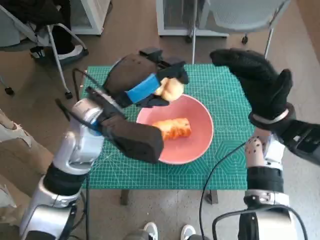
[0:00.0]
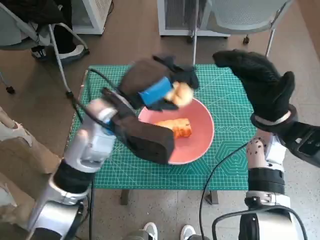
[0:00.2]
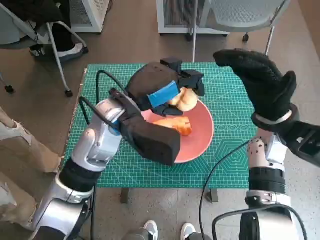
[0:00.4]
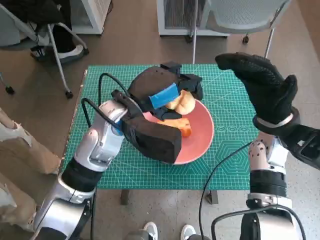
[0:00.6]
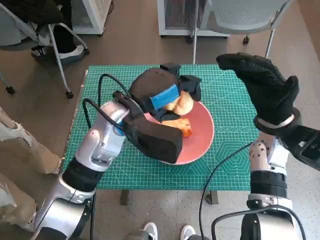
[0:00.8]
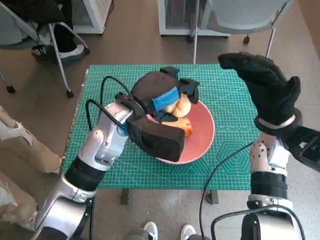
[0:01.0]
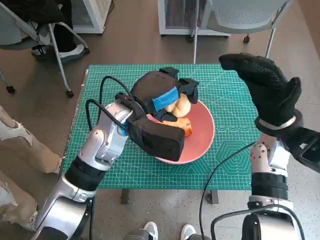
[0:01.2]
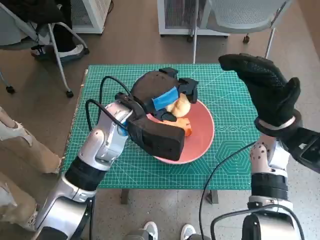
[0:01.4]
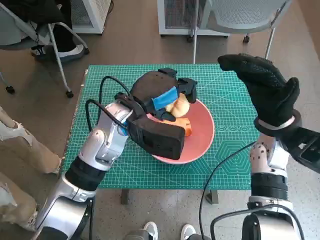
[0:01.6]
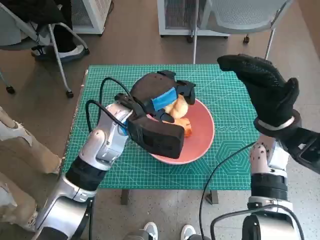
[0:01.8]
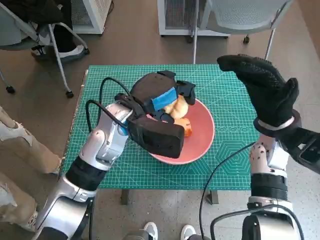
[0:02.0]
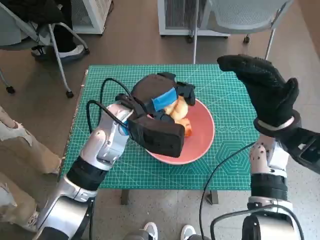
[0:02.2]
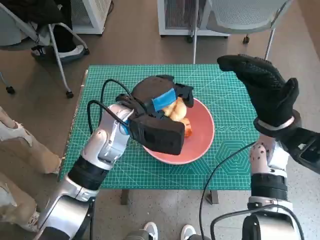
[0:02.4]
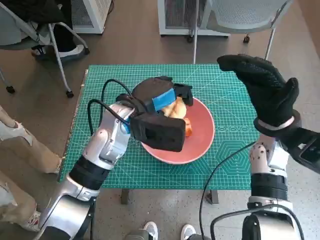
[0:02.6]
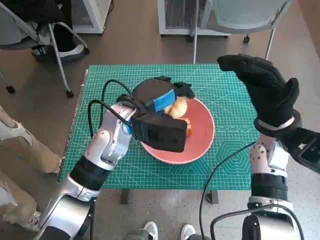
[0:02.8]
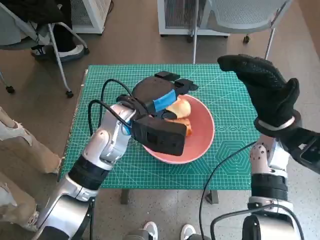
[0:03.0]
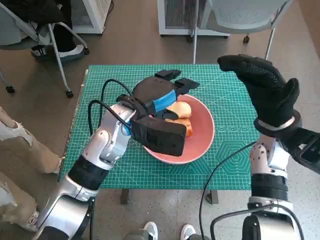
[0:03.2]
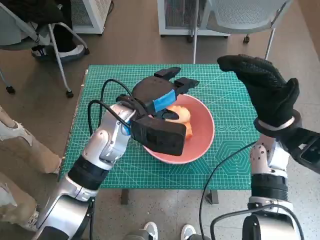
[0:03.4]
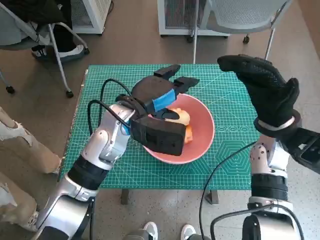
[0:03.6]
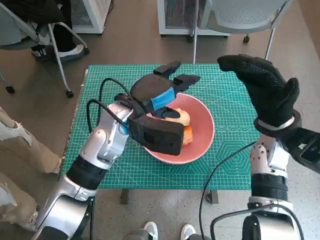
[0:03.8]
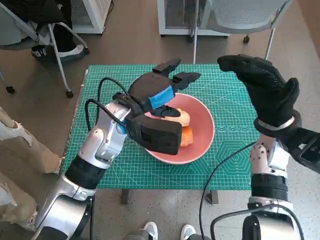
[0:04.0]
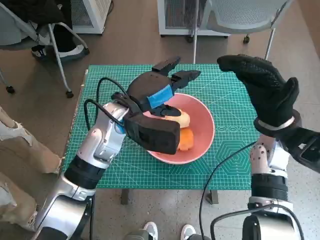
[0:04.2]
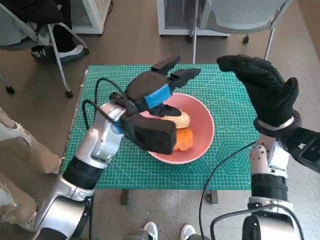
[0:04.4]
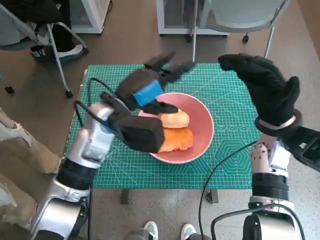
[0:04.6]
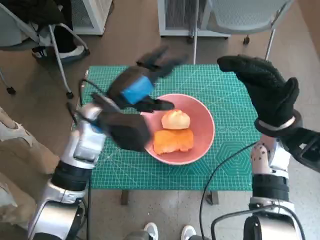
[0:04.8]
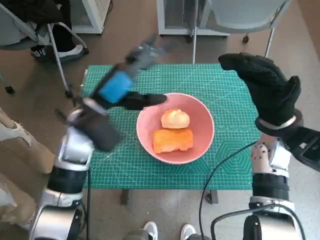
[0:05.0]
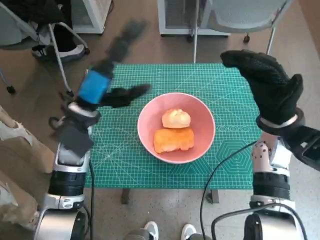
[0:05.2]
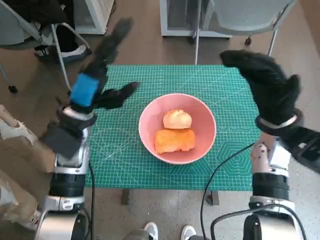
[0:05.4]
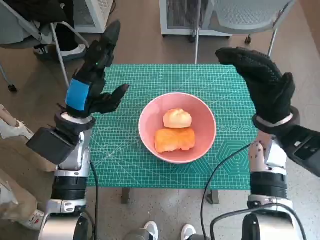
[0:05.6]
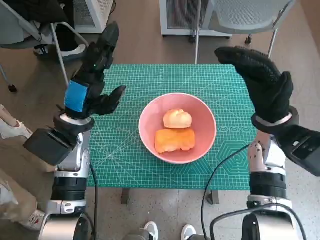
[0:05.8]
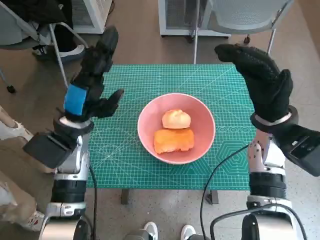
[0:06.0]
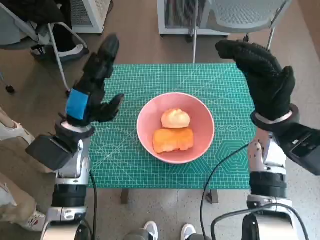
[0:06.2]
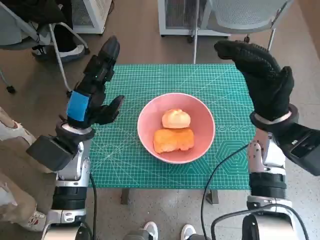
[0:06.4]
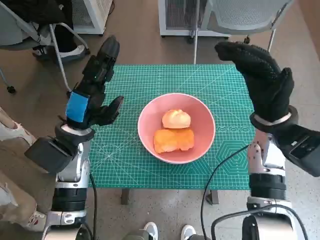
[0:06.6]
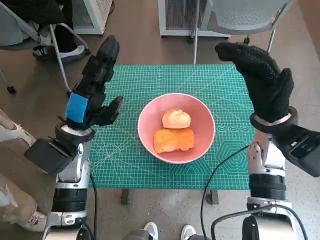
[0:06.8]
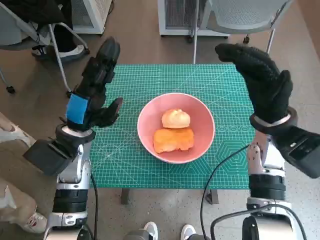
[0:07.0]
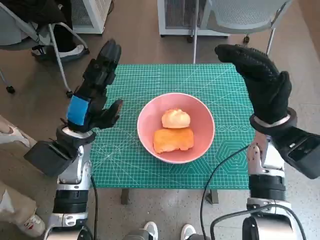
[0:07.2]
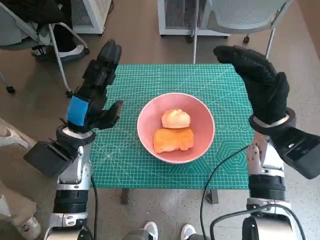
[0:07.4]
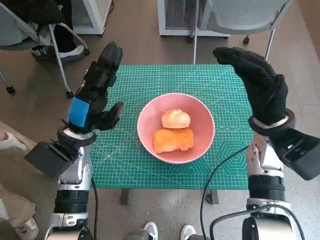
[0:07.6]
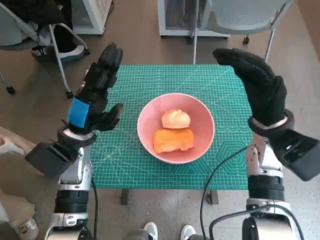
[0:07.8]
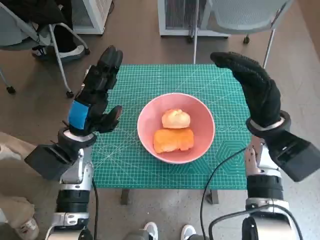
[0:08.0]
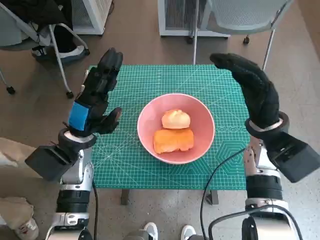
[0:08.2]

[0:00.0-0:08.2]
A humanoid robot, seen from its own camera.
Step, 0:00.0 to 0:03.6: Place the round bread in pink bowl with left hand.
0:00.0 to 0:01.6: The left hand moves about 5 cm.
0:01.6 to 0:03.2: The hands move only a little.
0:03.2 to 0:05.0: The left hand travels to the left by roughly 5 cm.
0:05.0 to 0:06.6: The left hand moves roughly 5 cm.

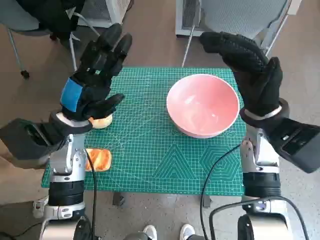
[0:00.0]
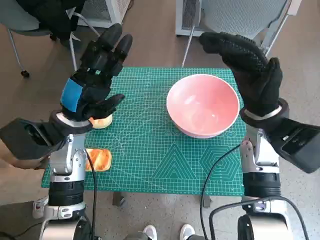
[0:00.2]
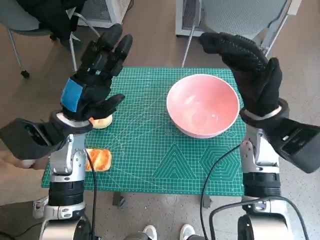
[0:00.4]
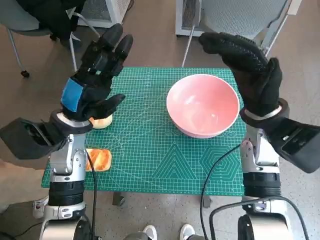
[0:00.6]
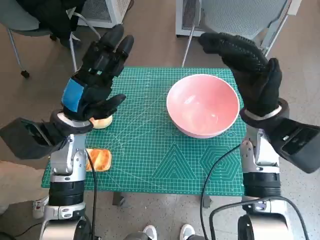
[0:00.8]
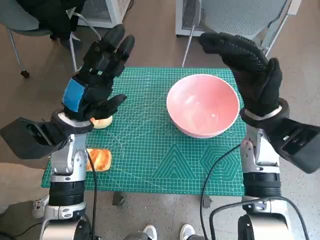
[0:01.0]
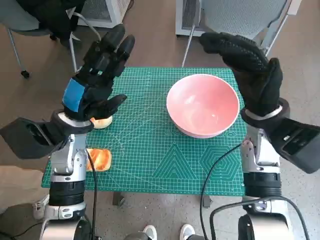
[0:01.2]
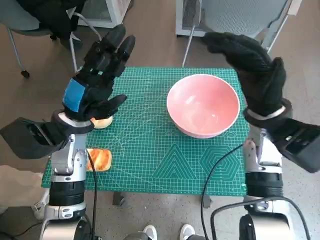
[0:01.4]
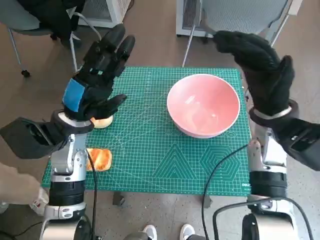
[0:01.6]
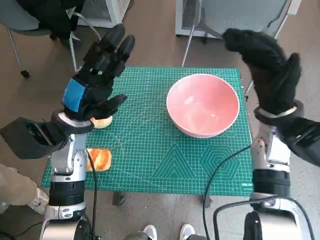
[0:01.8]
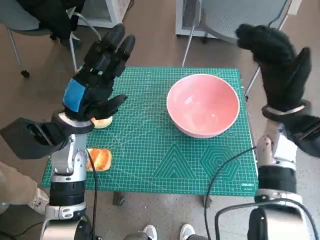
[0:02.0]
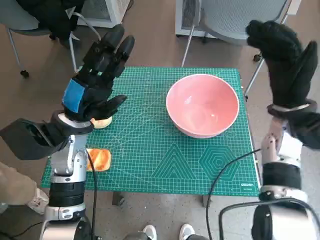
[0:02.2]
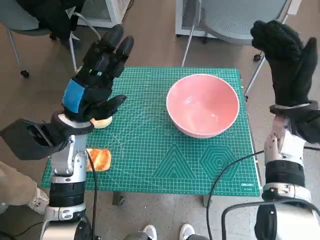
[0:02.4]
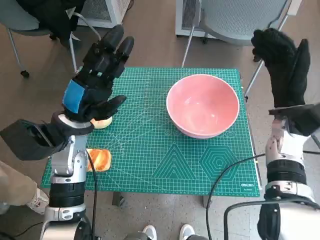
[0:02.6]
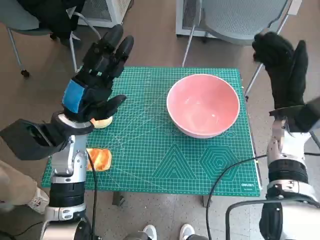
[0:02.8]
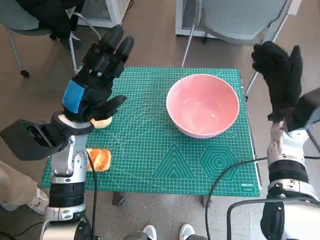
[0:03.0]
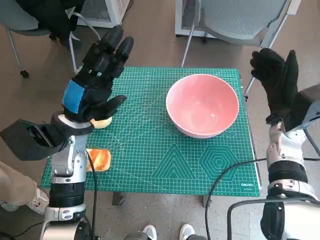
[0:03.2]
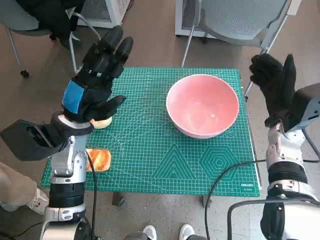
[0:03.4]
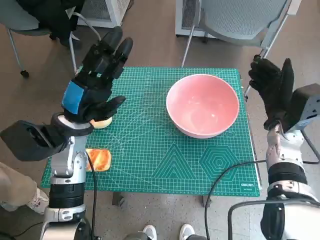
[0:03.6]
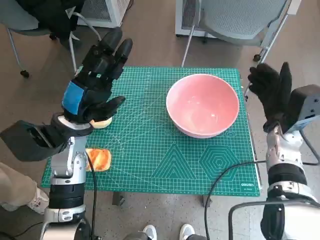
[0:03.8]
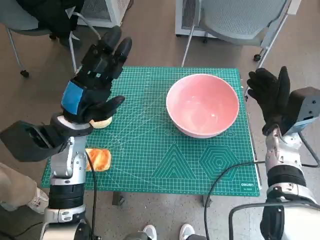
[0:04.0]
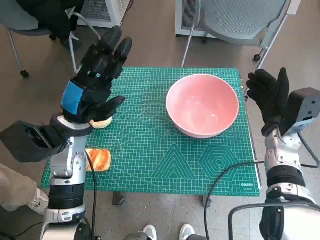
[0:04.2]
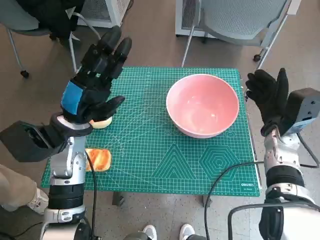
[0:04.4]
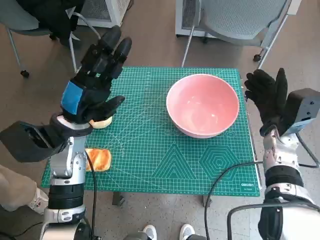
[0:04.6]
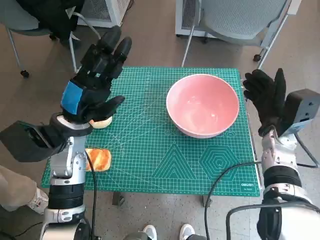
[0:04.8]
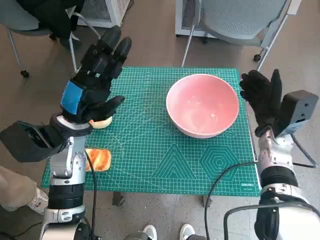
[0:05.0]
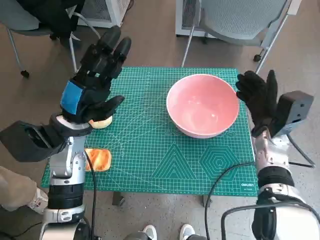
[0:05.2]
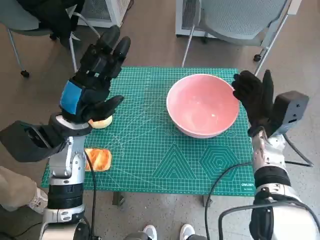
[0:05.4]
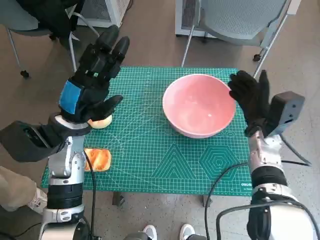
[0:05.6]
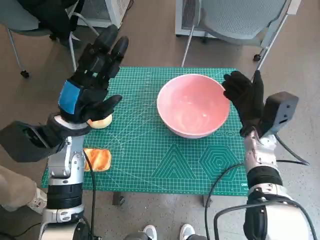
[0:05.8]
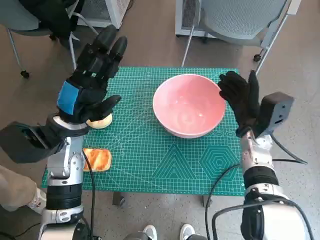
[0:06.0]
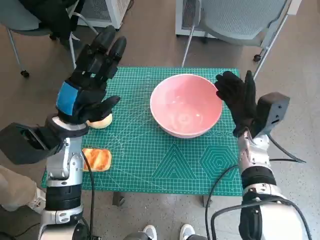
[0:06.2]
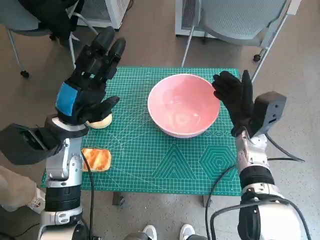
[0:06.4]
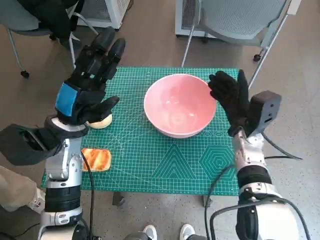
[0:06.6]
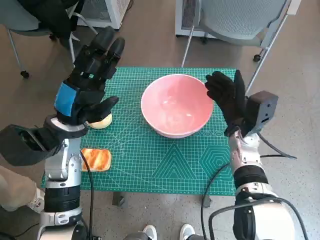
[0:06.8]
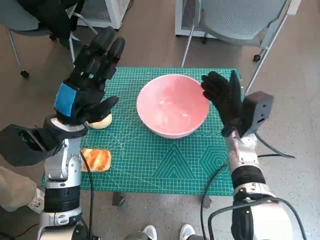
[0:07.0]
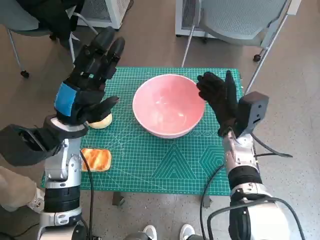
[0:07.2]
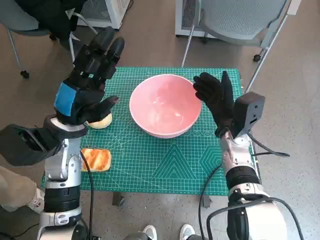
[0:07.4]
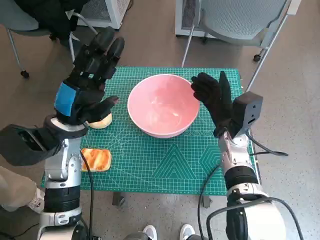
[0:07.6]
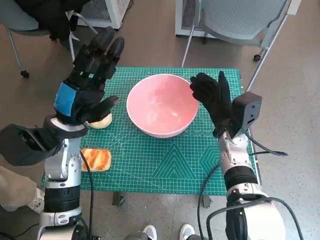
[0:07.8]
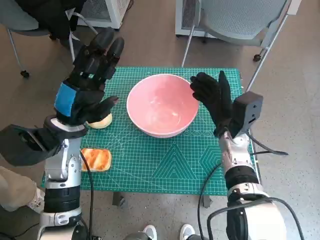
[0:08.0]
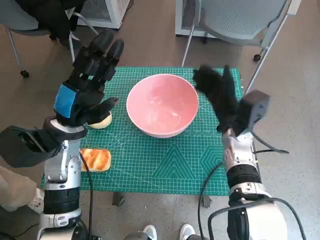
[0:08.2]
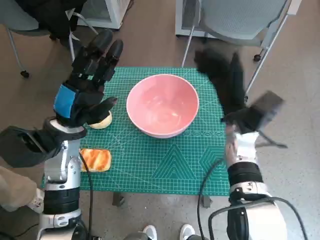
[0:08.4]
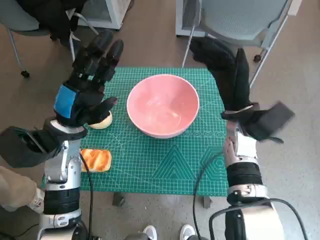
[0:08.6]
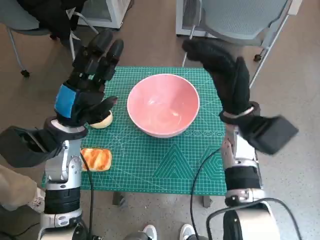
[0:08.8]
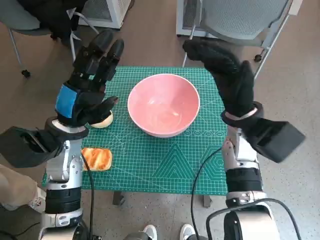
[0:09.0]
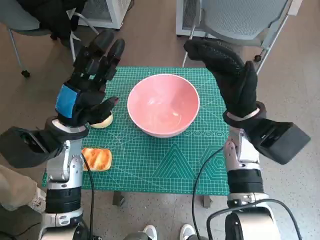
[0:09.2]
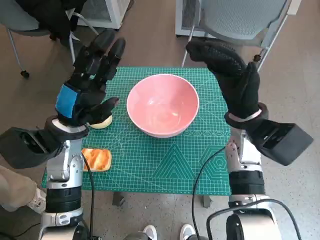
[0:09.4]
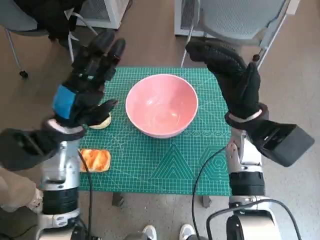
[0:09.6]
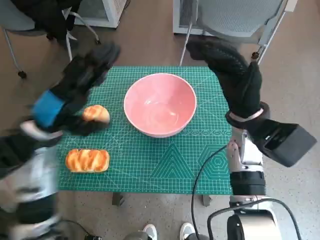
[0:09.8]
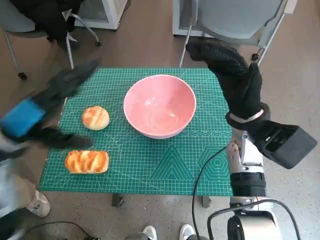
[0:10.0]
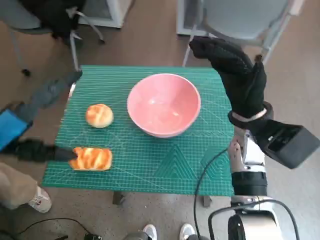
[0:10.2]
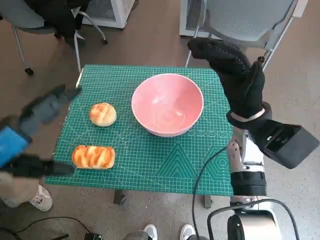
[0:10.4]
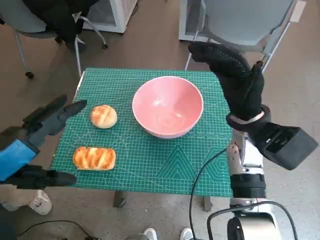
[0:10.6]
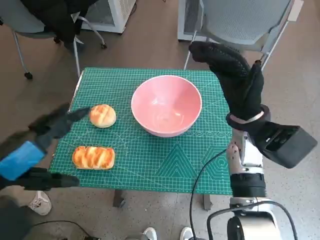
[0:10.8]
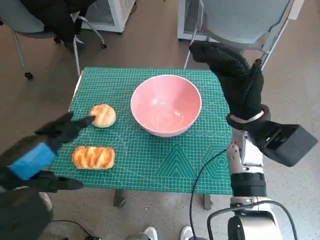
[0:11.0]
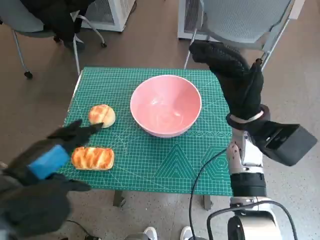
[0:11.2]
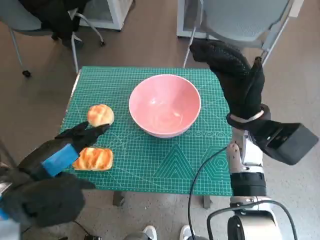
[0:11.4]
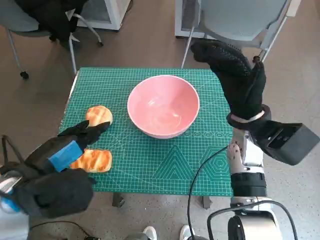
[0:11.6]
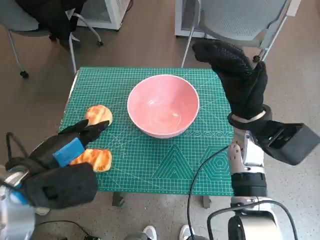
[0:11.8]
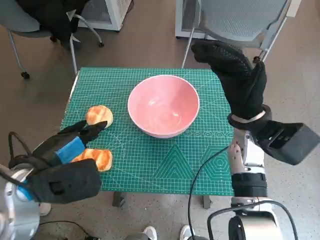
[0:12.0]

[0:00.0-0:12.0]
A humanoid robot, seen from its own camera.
Step, 0:00.0 to 0:08.2: Move the pink bowl to the center of table with right hand.
0:01.6 to 0:03.0: The right hand is displaced to the right by about 5 cm.
0:04.4 to 0:06.0: The right hand ends up some 5 cm from where it was.
0:07.6 to 0:09.0: The right hand moves upward, some 10 cm.
0:09.0 to 0:10.4: The left hand moves backward, upward and to the left, approximately 15 cm.
0:10.4 to 0:12.0: The left hand goes roughly 10 cm downward and to the right.

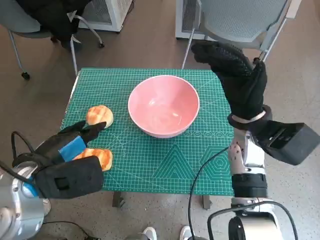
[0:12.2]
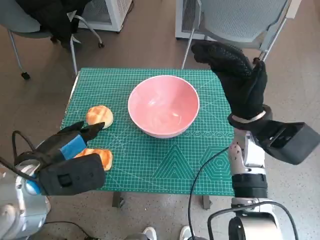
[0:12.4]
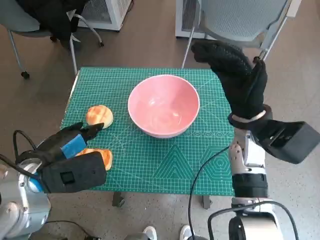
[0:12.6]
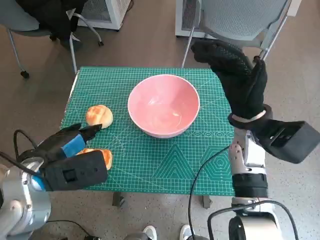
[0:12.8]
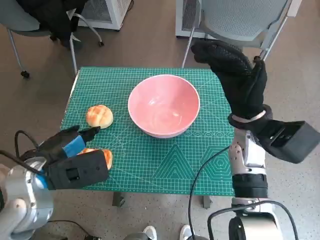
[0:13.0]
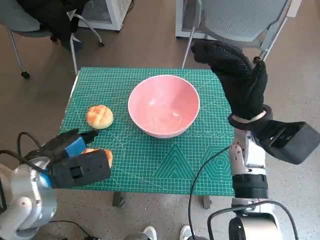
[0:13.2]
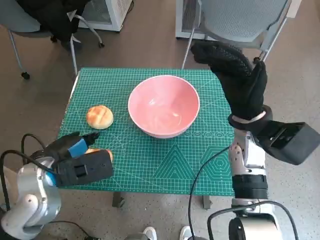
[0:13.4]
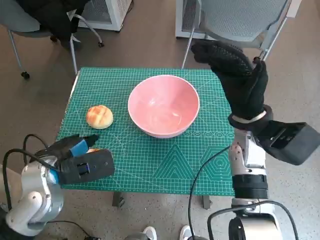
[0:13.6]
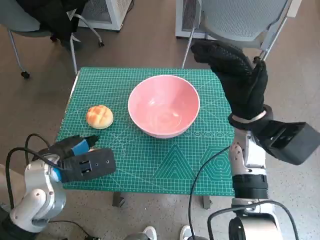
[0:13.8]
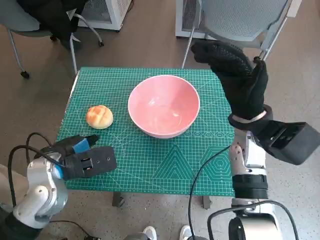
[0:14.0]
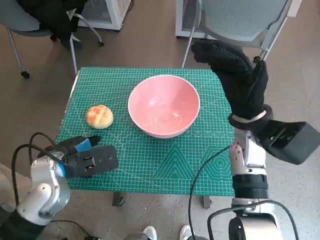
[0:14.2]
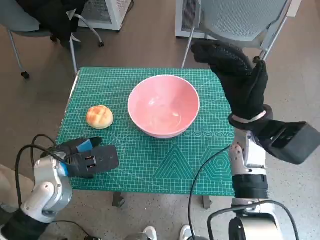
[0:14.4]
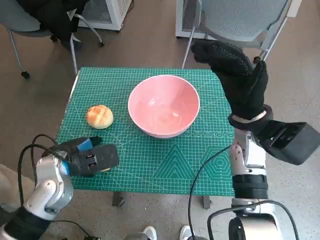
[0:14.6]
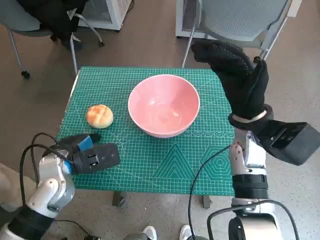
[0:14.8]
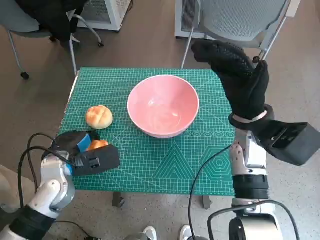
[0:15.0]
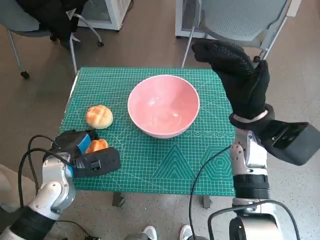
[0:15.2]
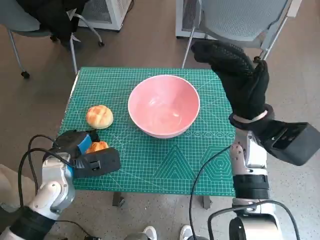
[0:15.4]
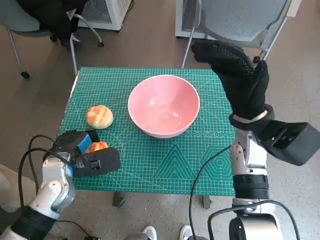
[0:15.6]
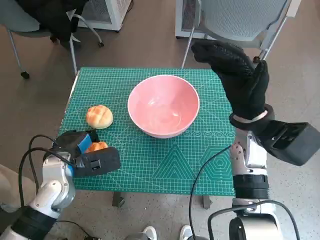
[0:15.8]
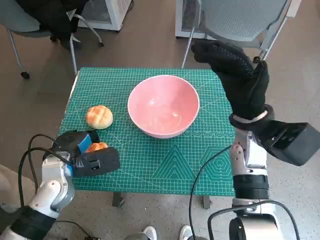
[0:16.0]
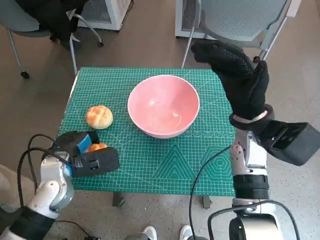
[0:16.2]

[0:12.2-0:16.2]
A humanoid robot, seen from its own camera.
Step, 0:12.2 to 0:15.4: Grasp the long bread with left hand.
0:12.2 to 0:13.6: The left hand moves about 5 cm.
0:13.6 to 0:16.2: The hands make only small movements.
